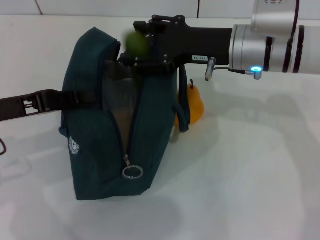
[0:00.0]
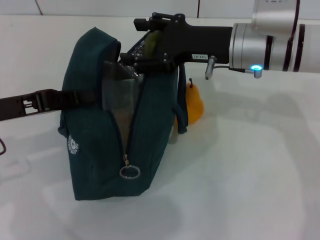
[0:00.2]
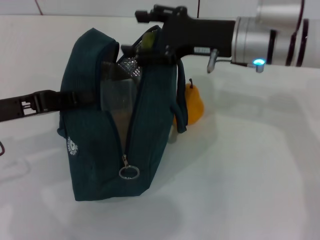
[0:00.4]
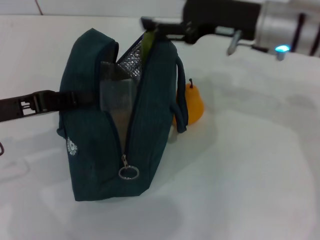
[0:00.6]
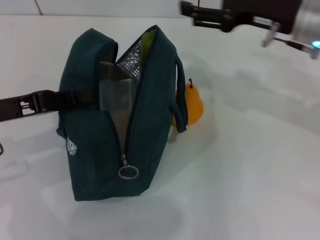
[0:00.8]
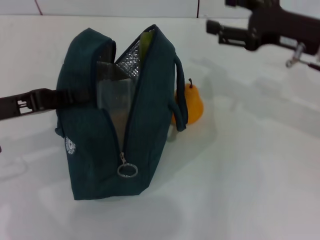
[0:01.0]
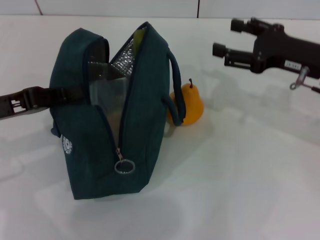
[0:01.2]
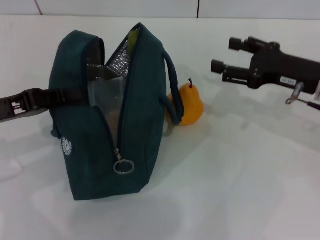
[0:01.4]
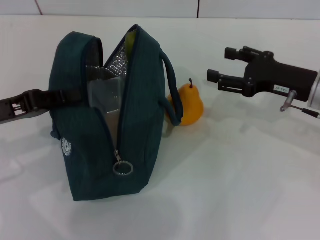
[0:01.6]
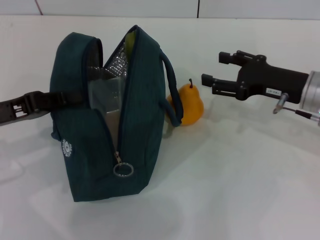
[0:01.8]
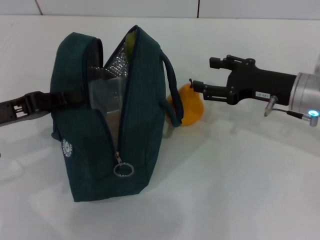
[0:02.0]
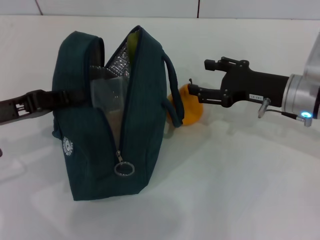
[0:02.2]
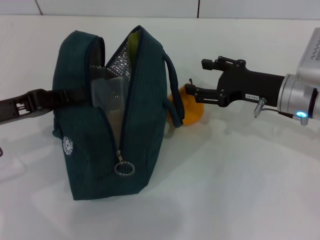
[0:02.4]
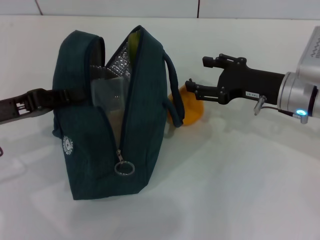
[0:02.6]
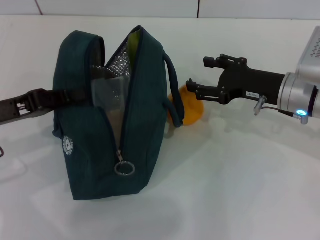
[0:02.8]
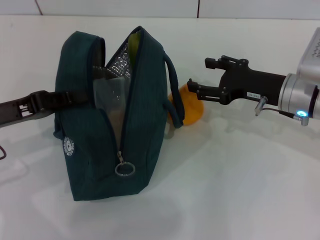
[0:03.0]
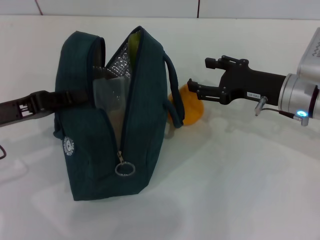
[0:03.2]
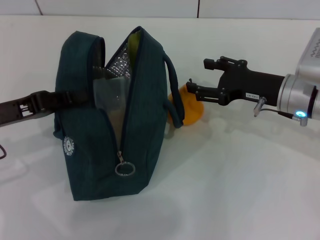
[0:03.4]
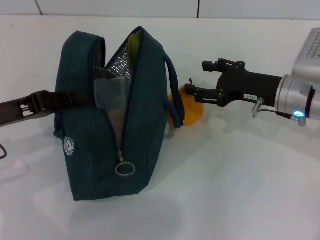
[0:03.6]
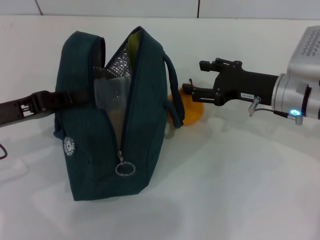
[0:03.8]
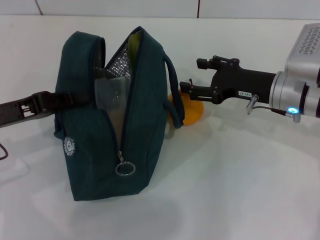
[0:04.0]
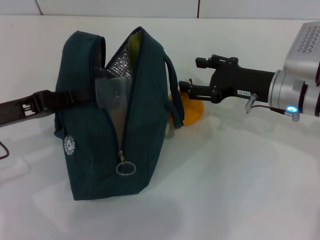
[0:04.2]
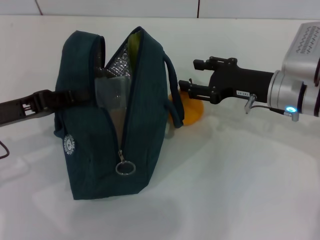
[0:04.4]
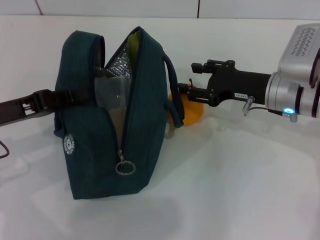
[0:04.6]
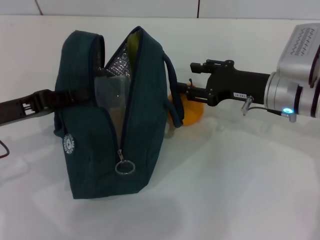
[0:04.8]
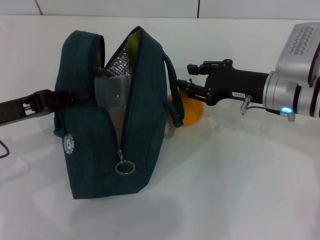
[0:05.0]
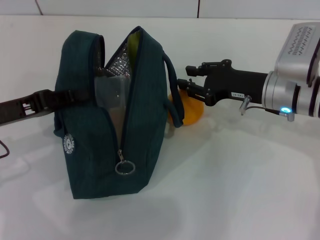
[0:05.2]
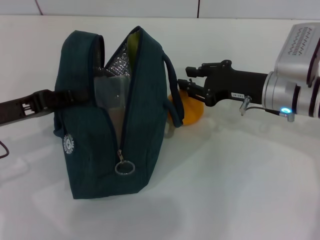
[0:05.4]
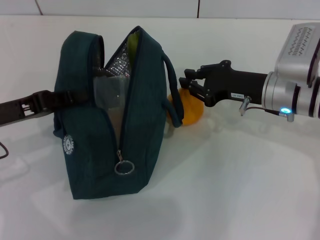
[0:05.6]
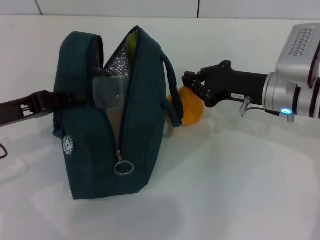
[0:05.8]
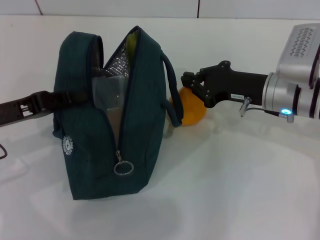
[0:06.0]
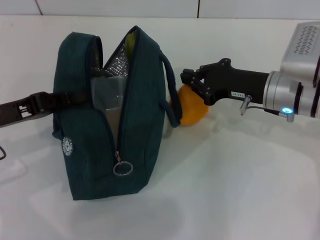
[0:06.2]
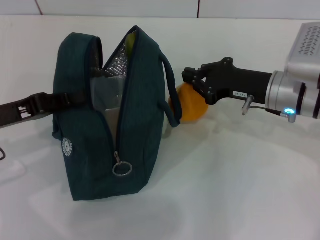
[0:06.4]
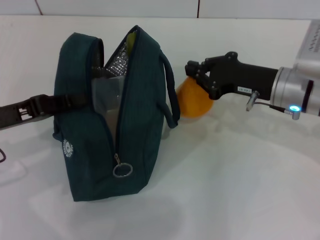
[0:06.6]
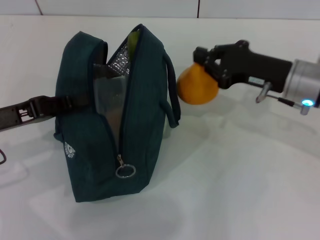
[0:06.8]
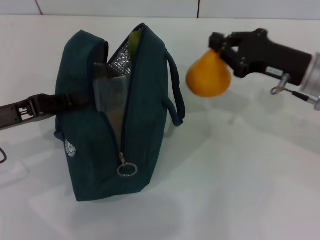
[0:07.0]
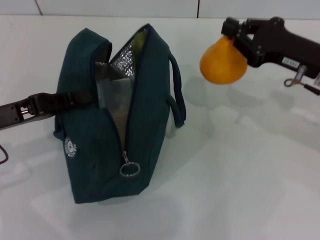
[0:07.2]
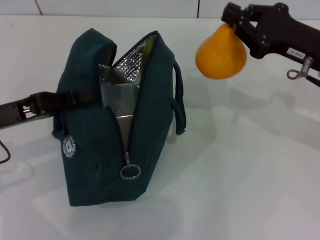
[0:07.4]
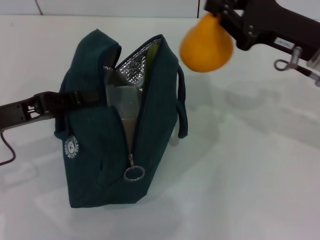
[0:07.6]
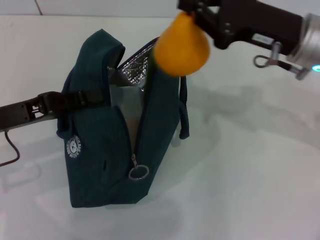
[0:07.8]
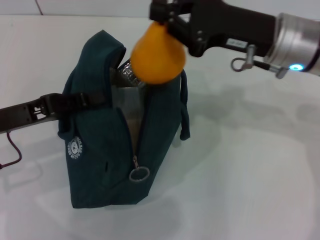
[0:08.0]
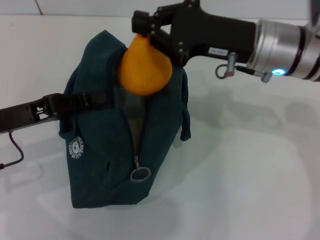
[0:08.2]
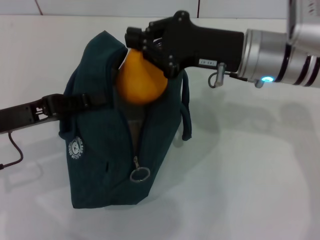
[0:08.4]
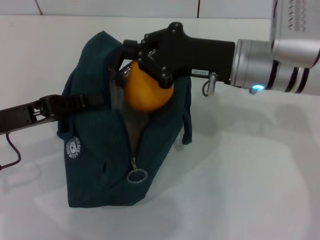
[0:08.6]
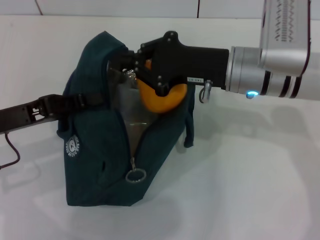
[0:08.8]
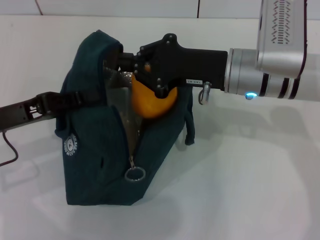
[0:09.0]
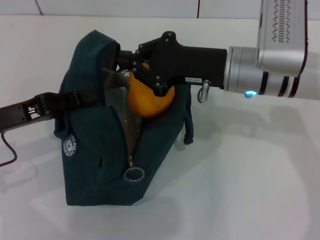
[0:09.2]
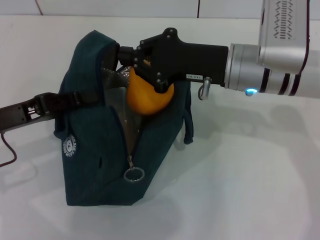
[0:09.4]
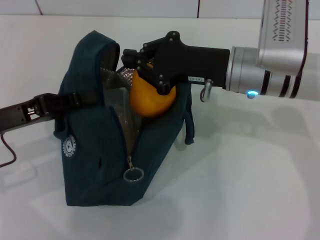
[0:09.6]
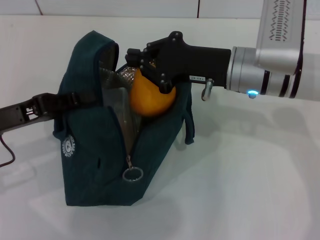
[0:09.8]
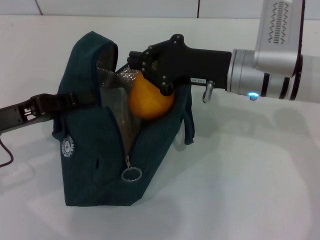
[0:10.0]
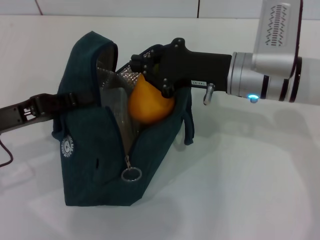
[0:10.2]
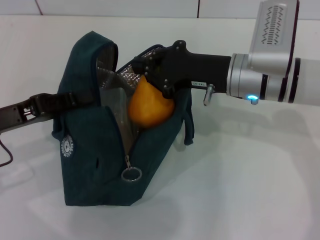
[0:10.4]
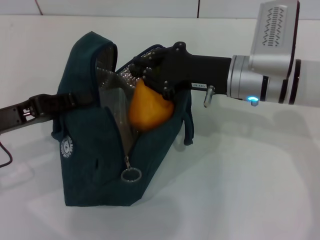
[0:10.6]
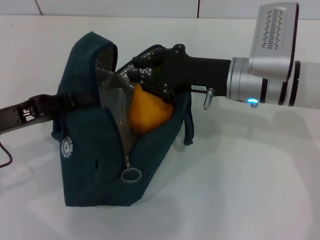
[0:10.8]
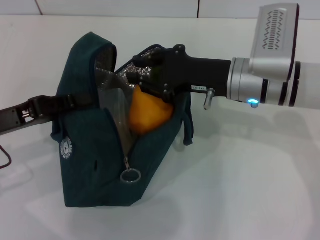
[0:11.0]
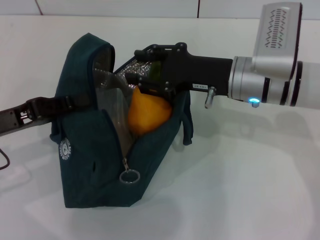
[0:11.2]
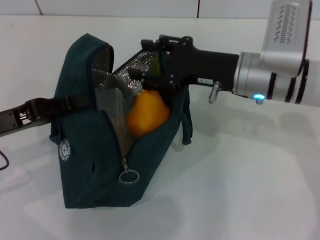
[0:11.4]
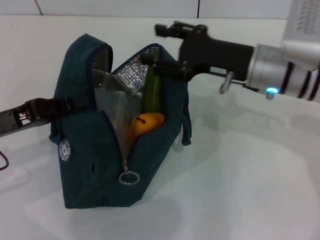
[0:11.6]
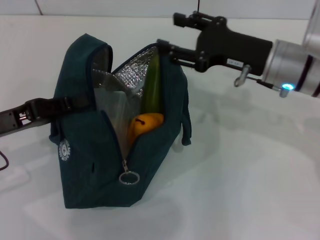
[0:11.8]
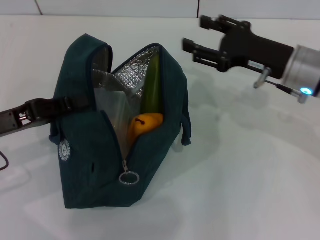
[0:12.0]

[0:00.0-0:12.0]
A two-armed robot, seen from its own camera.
Step, 0:00.8 to 0:05.6: Grab the pear with your right hand.
Step, 0:05.8 to 0:11.4: Secure the lunch bag with your left hand.
0:00.0 to 0:01.6: The right gripper goes some 15 cm to the right and downward.
0:01.6 to 0:04.4: The grippers move only a little.
0:04.4 to 0:06.0: The right gripper closes its fingers.
0:06.0 to 0:07.6: The right gripper heads upward, covering about 5 cm.
0:07.6 to 0:09.0: The right gripper is displaced to the left by about 10 cm.
0:09.0 to 0:10.4: The grippers move only a little.
0:10.4 to 0:12.0: The right gripper travels to the right by approximately 10 cm, and opens.

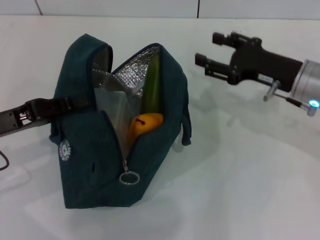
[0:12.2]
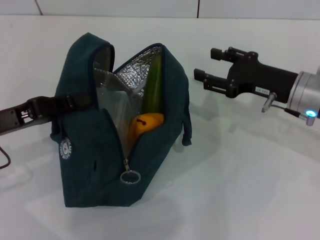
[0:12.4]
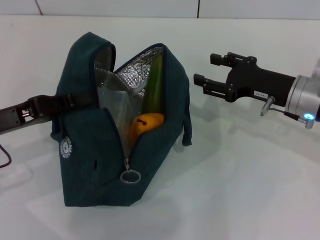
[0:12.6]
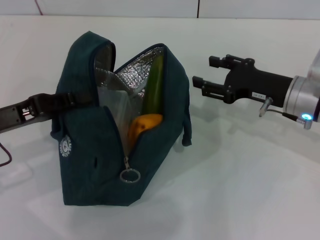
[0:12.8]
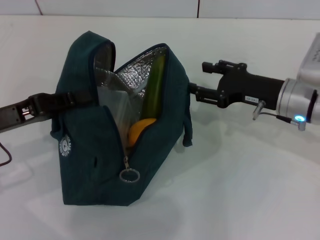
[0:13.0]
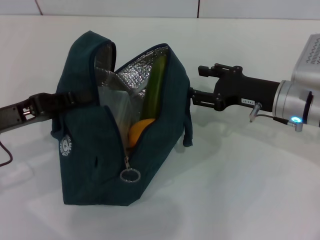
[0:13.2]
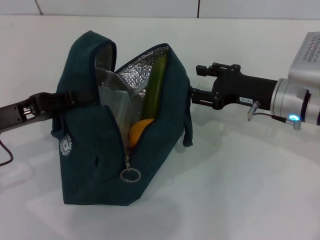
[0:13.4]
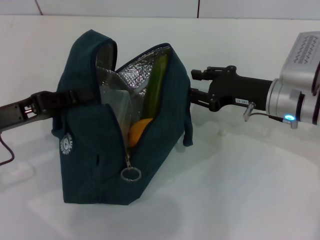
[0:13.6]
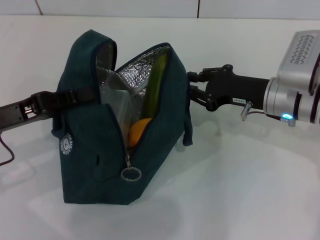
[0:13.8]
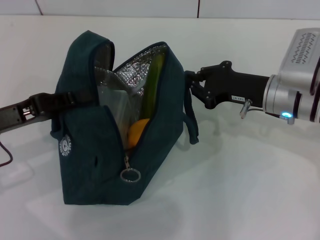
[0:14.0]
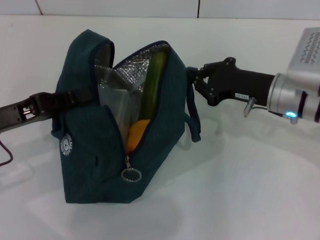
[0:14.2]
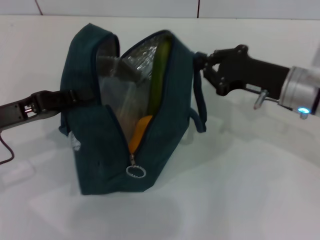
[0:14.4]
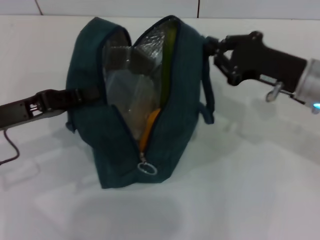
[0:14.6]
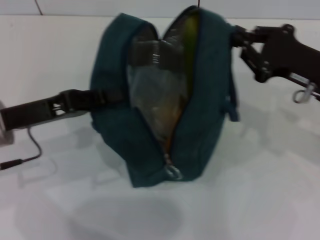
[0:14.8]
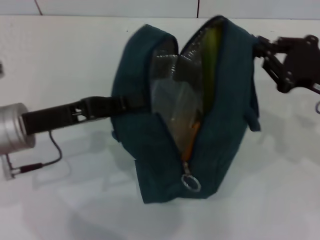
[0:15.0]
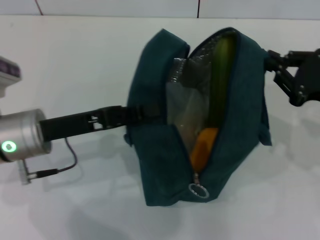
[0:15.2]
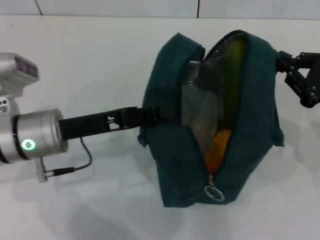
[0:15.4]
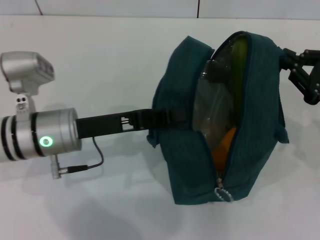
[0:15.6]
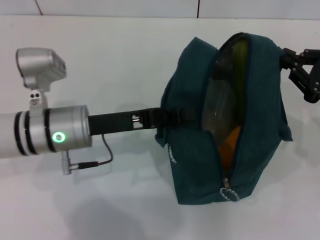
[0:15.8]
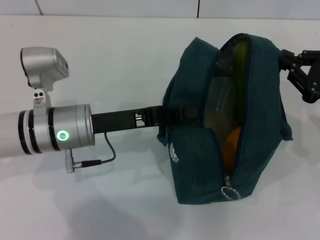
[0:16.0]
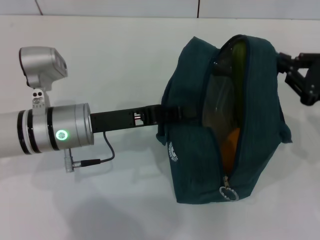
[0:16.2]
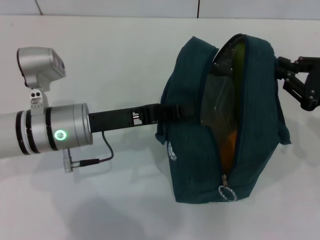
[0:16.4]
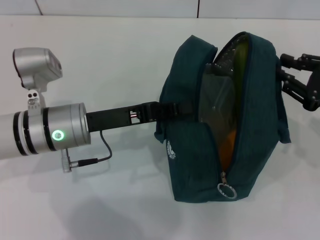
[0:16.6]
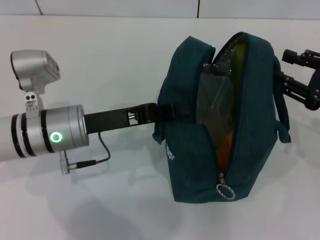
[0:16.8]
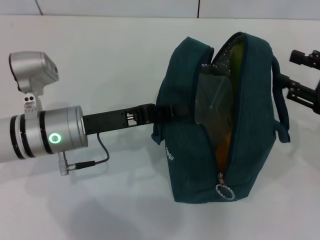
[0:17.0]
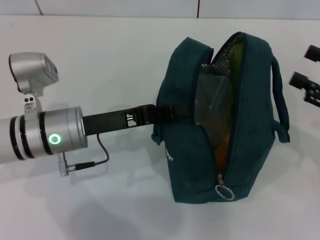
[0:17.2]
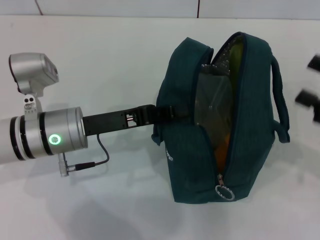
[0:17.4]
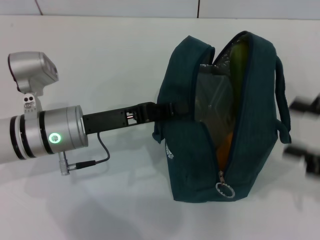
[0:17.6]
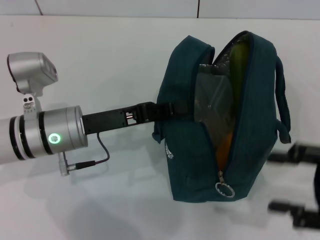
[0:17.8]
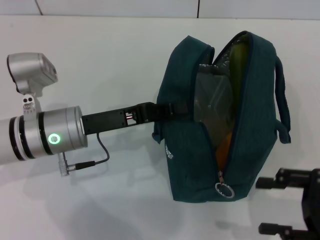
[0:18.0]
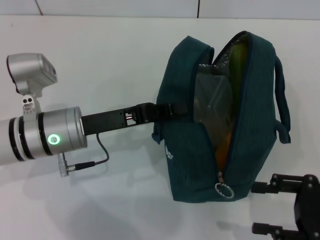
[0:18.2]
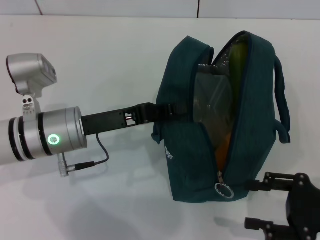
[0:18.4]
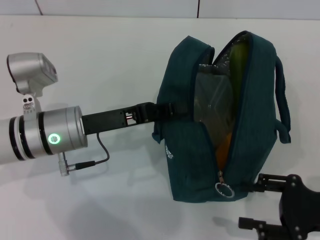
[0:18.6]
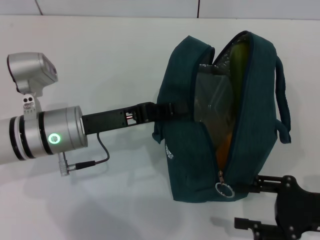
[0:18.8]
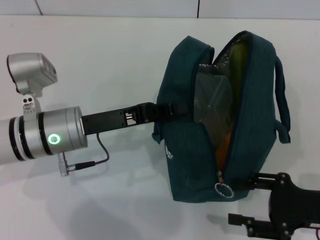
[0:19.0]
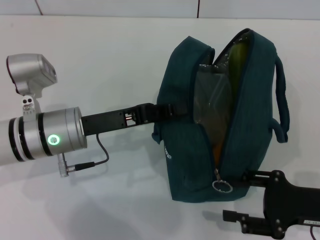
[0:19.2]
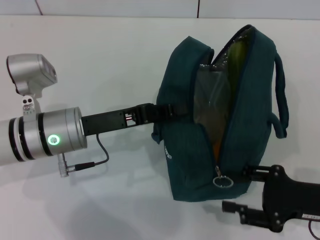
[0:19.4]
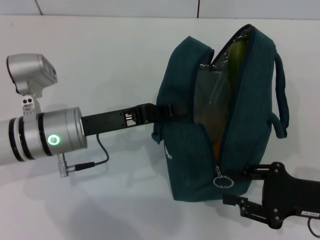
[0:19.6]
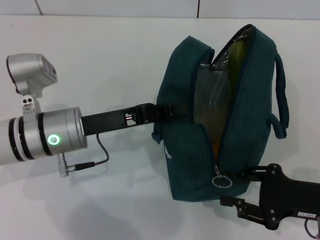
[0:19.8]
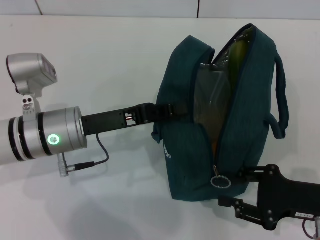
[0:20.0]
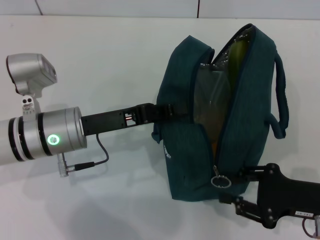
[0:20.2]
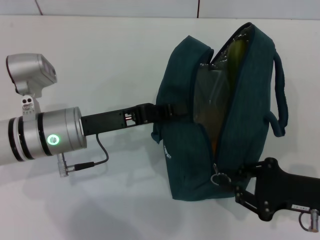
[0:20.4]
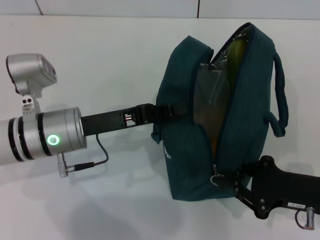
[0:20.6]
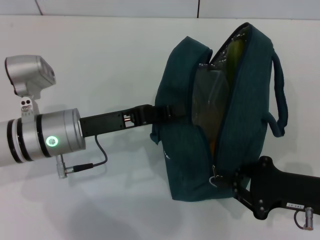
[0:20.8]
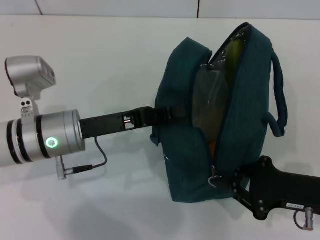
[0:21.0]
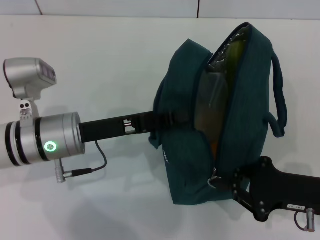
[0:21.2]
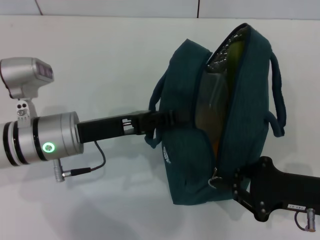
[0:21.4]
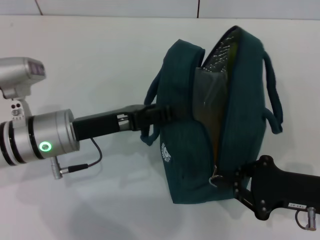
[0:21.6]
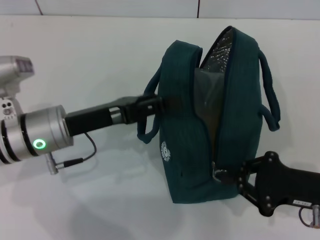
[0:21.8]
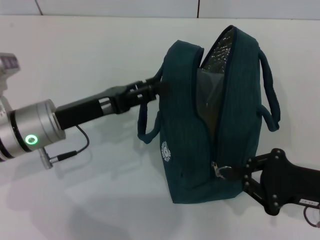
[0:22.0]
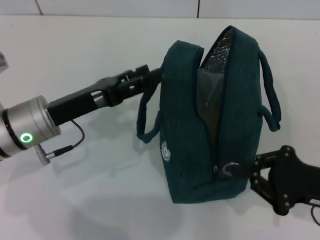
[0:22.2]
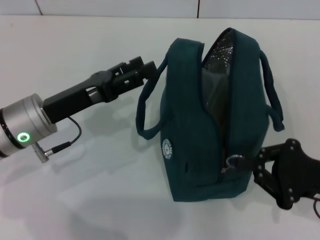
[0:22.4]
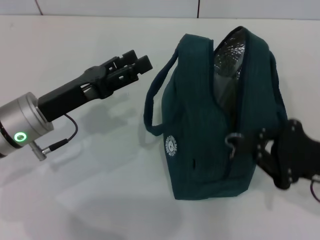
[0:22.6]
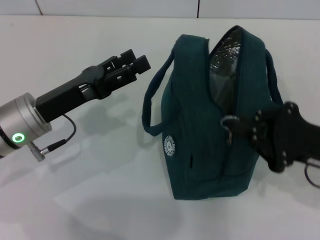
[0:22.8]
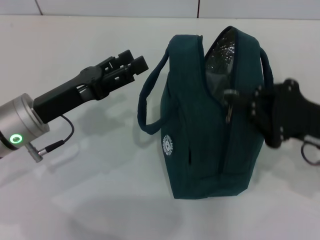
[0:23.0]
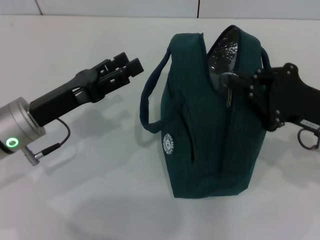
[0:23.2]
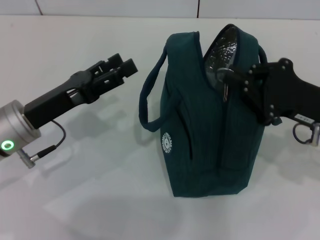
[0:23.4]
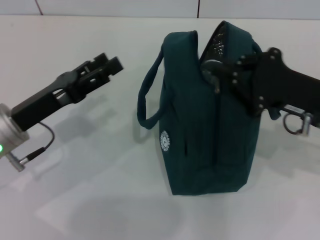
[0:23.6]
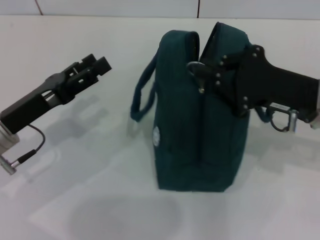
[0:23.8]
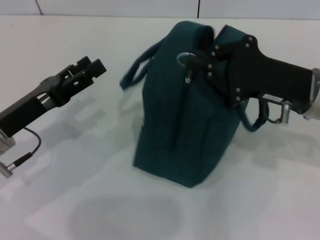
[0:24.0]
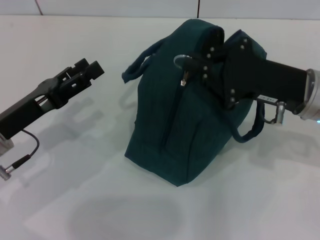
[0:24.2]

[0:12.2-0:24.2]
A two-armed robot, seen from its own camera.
Step, 0:12.2 to 0:17.2: Hold the lunch bag with your right hand.
Step, 0:17.4 to 0:22.2: Hold the lunch bag with your left hand.
0:12.2 to 0:13.8: The grippers make only small movements.
0:13.8 to 0:15.2: The right gripper travels to the right and backward by about 10 cm, and closes up. The left gripper moves to the right, roughly 5 cm.
0:15.2 to 0:16.6: The left gripper moves some 5 cm.
0:16.6 to 0:18.2: The right gripper moves backward, approximately 10 cm, and opens.
0:18.2 to 0:19.8: There are only small adjustments of the grippers.
0:19.8 to 0:21.2: The right gripper closes its fingers.
0:21.2 to 0:22.6: The left gripper opens its fingers.
0:22.6 to 0:24.2: The right gripper goes approximately 10 cm forward, to the left and upward, while the left gripper moves approximately 5 cm.
